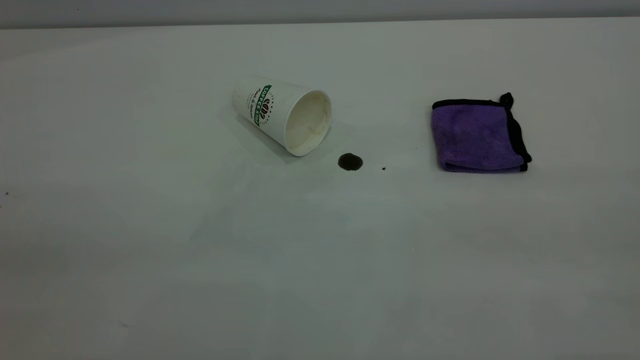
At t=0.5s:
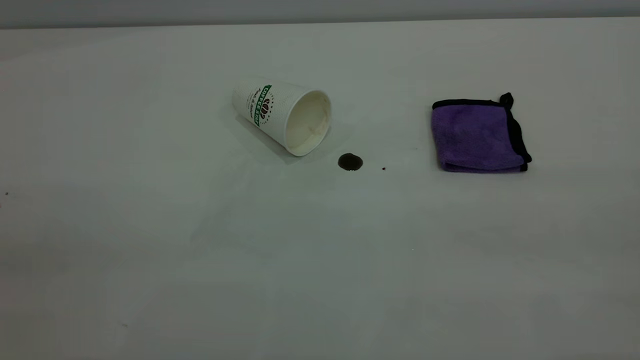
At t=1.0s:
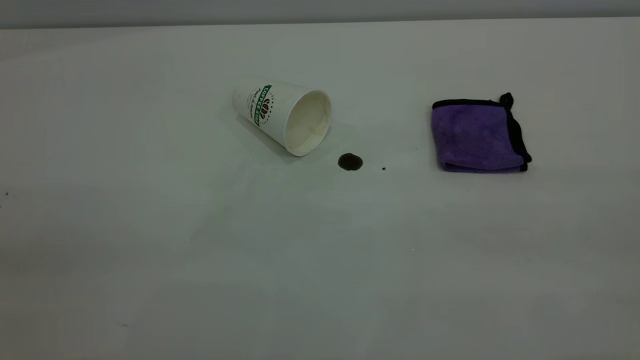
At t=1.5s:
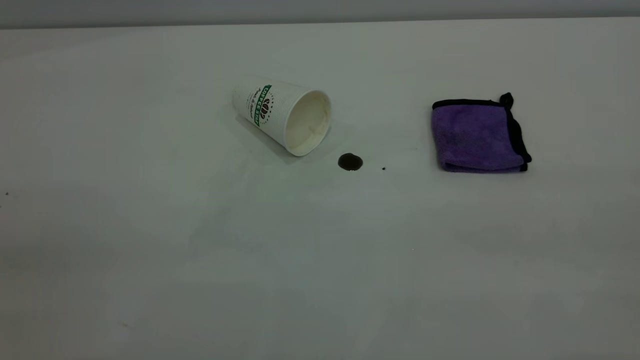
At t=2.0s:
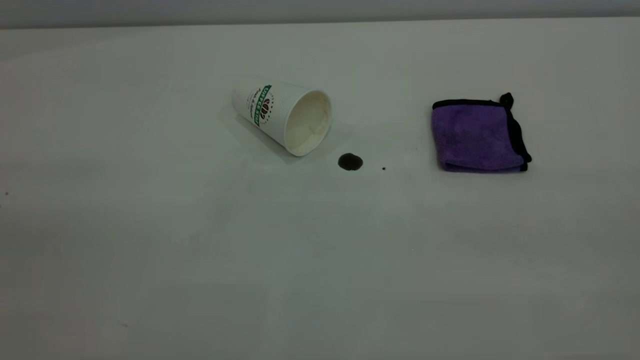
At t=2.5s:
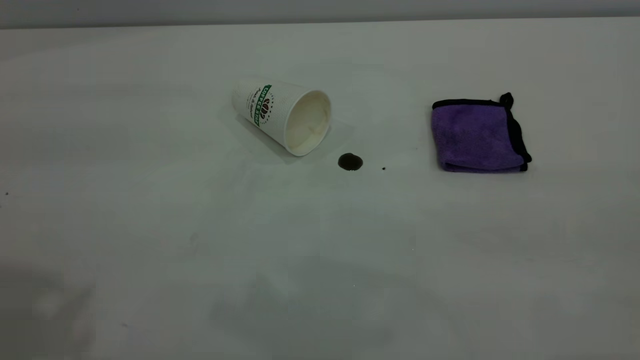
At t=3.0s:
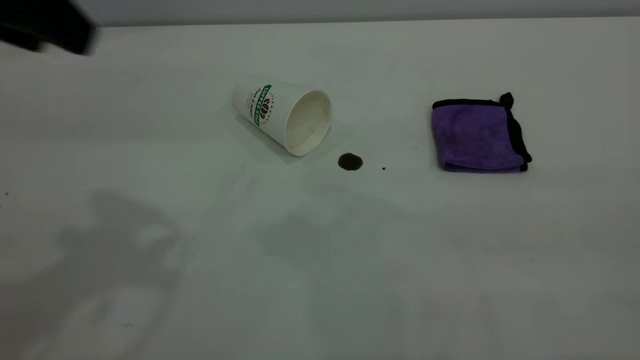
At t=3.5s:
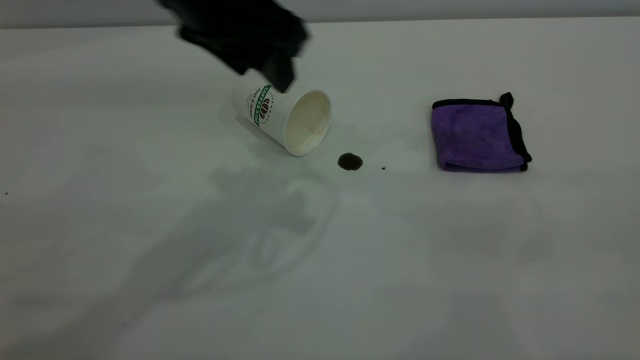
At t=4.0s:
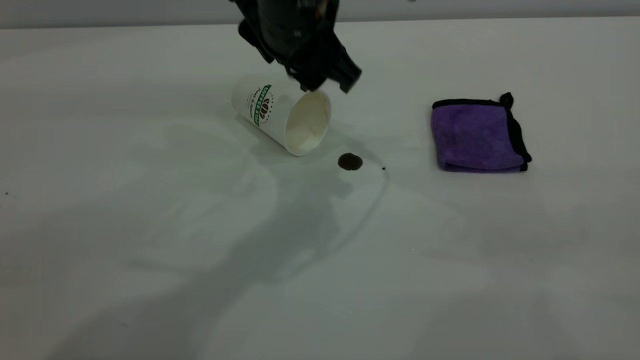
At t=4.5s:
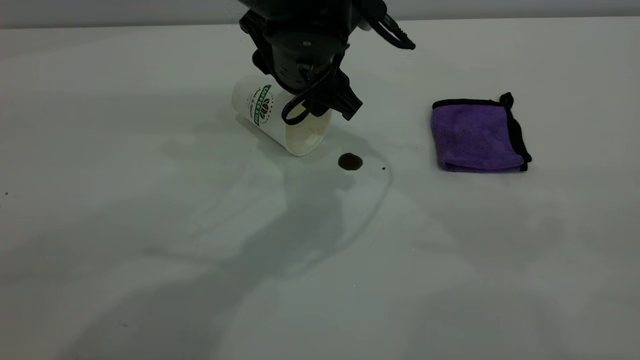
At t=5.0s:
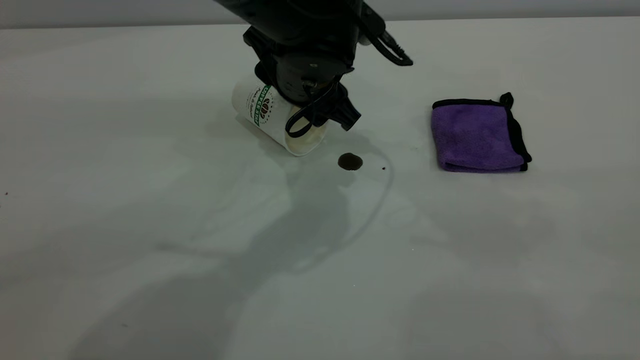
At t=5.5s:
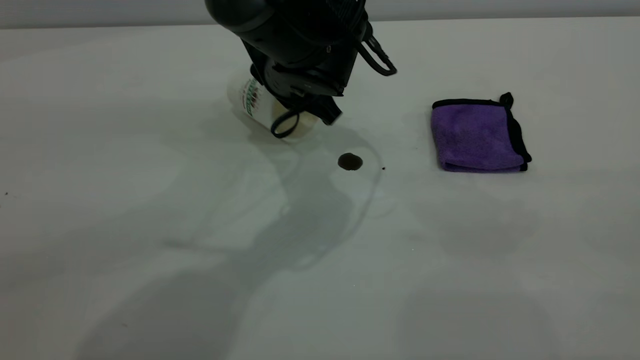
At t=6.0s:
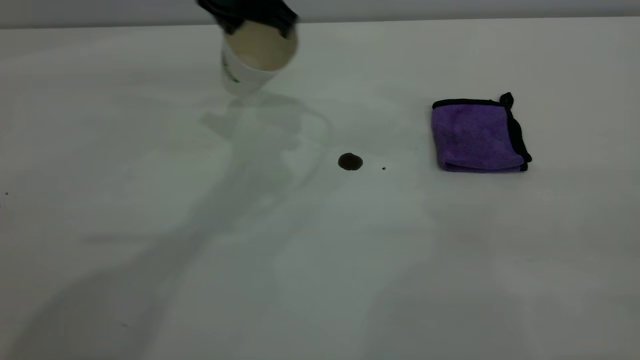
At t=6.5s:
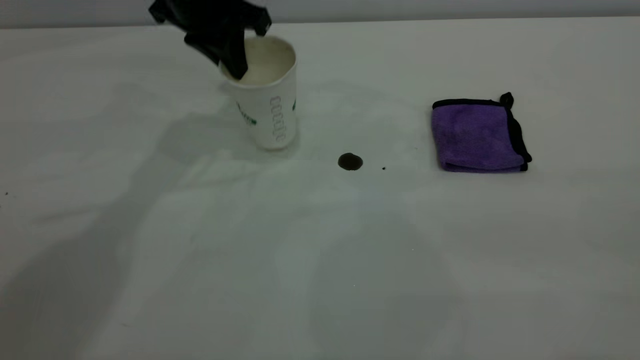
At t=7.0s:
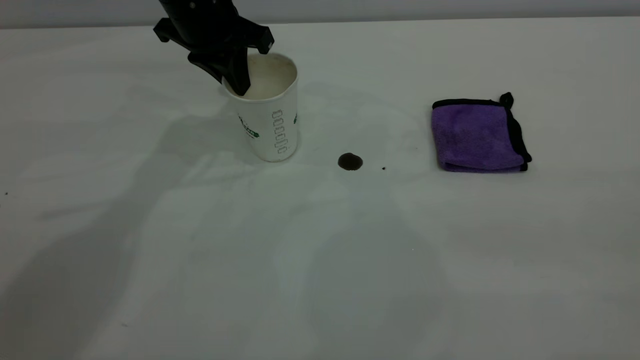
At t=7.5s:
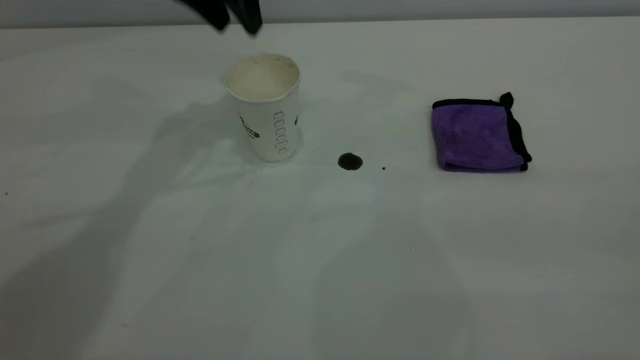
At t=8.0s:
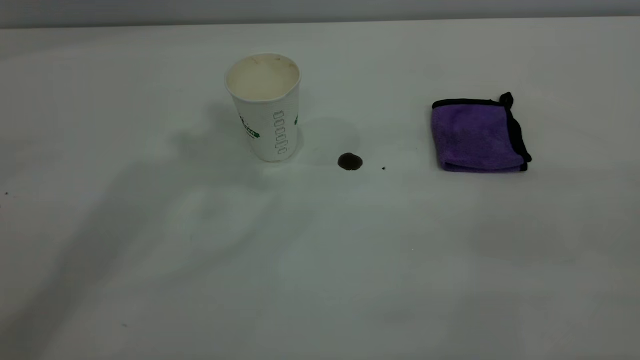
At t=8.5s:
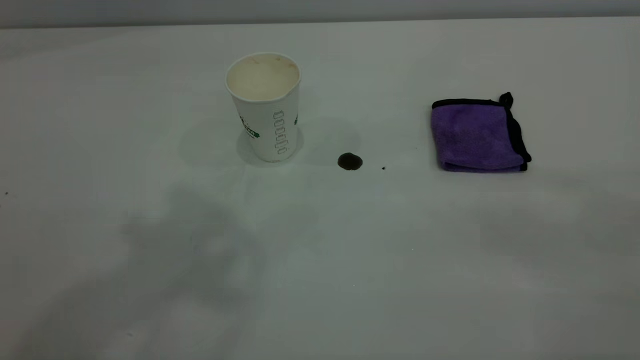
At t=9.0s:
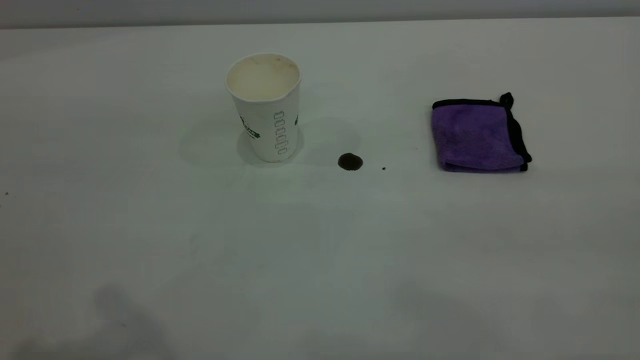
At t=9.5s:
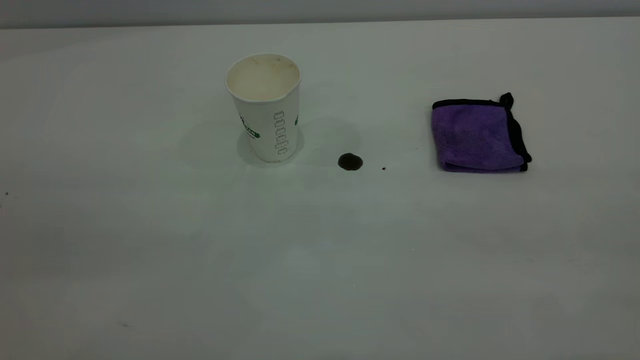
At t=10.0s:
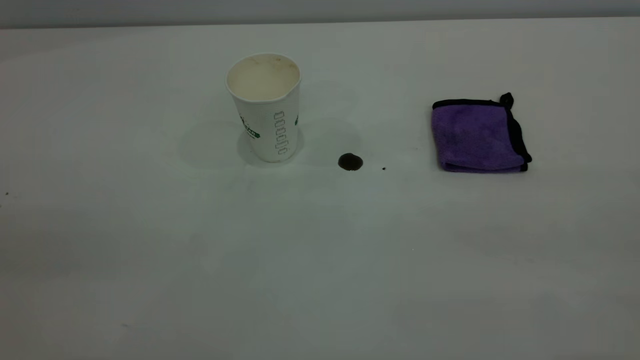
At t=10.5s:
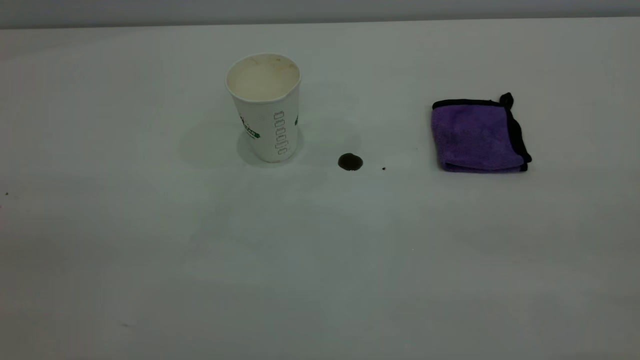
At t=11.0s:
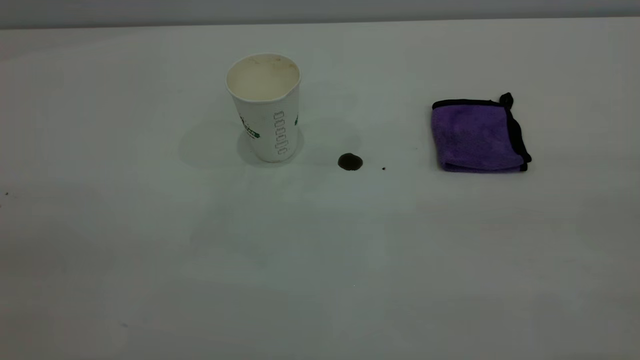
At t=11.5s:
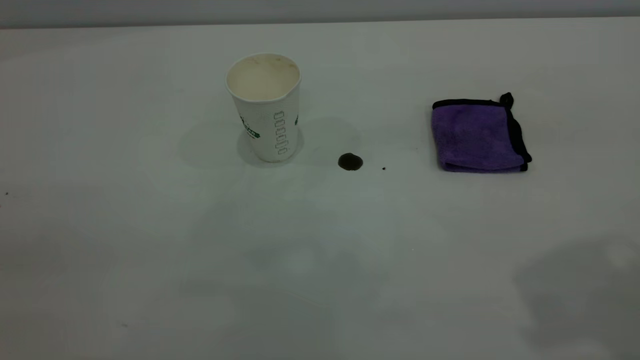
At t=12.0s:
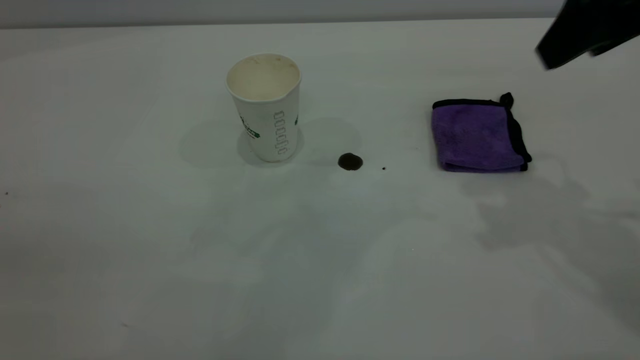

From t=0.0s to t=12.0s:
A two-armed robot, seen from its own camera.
Task of the whole recording: the left gripper pick up the fallen cup and place it upright, the right gripper grasp the purple rag and wipe the coffee stain on the table, the right gripper put the purple rag back in its original position.
Step, from t=0.0s to t=7.0s: Stand the paper cup upright.
From t=2.0s to t=4.0s: The left gripper is displaced forward, to the right and downward by some 50 cm.
From t=4.0s to t=6.0s: The left gripper is displaced to the left and forward by some 10 cm, travels downward and back again, roughly 5 cm each way, and closes.
From t=6.0s to t=8.0s: The left gripper heads upward, covering about 25 cm, and opens its fingers.
From t=10.0s to t=12.0s: The right gripper moves forward, some 30 cm.

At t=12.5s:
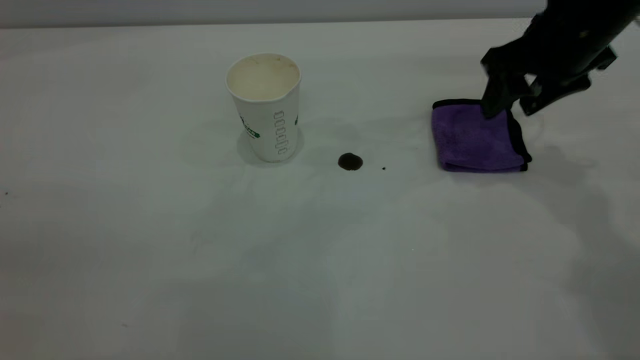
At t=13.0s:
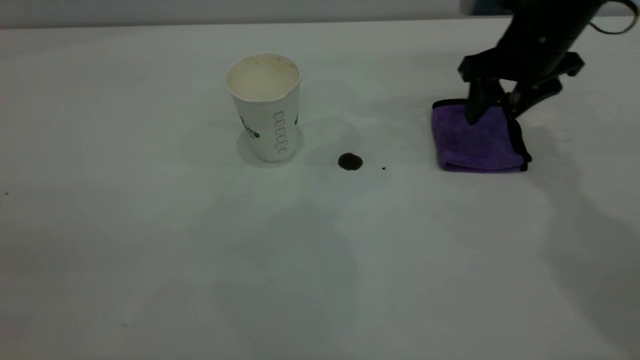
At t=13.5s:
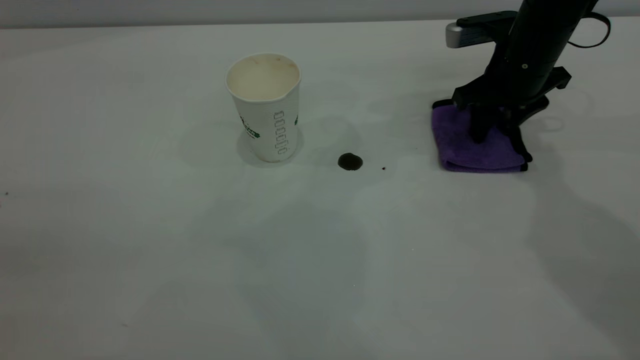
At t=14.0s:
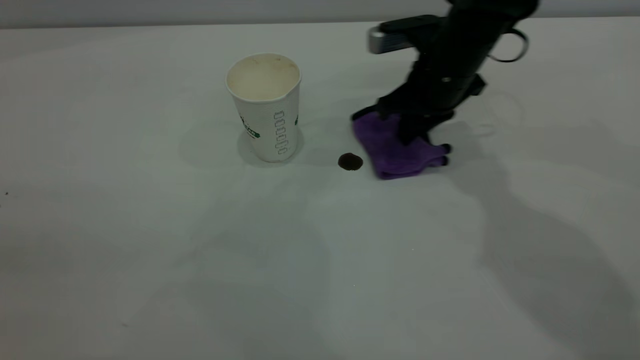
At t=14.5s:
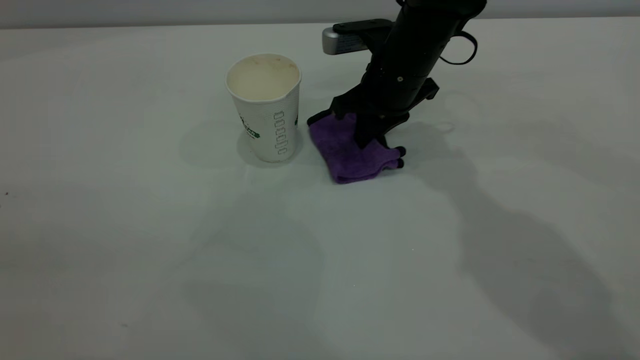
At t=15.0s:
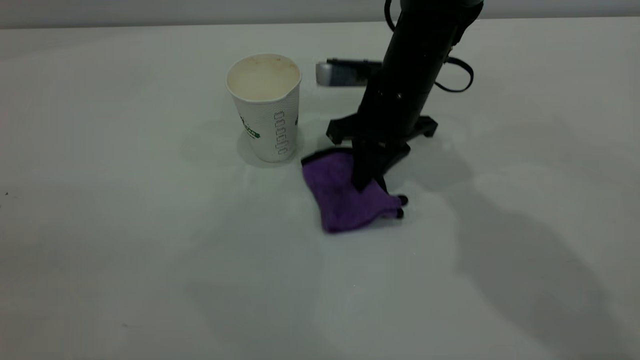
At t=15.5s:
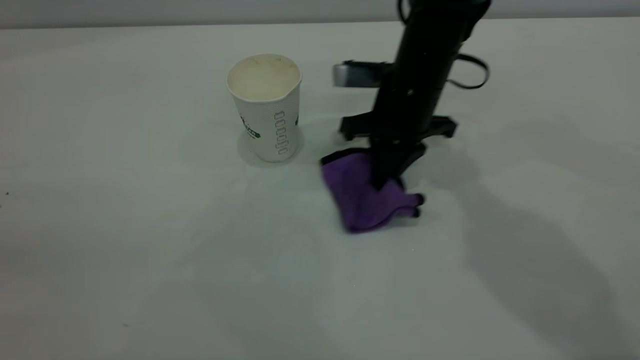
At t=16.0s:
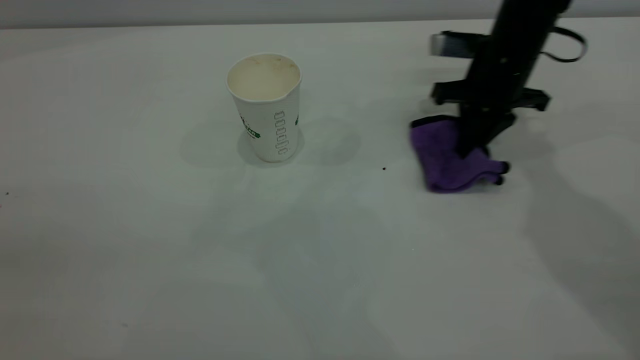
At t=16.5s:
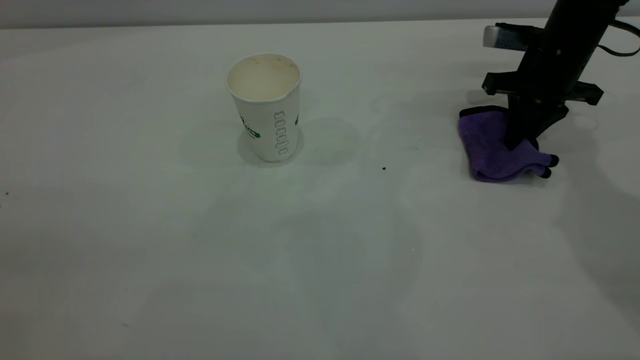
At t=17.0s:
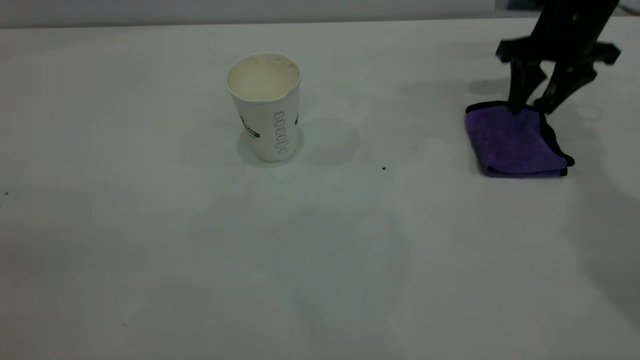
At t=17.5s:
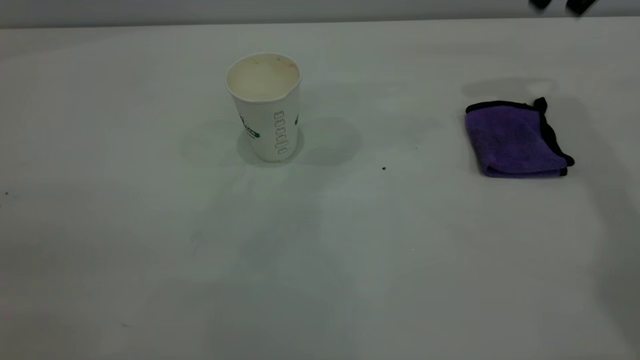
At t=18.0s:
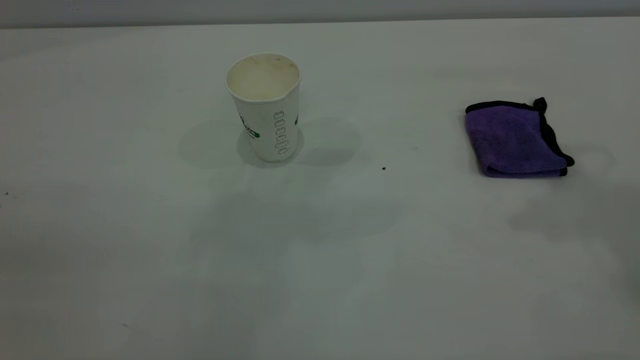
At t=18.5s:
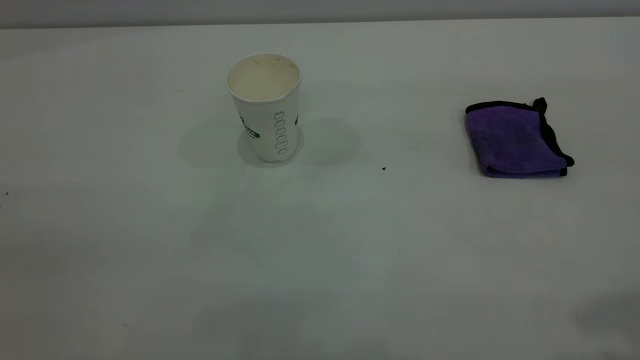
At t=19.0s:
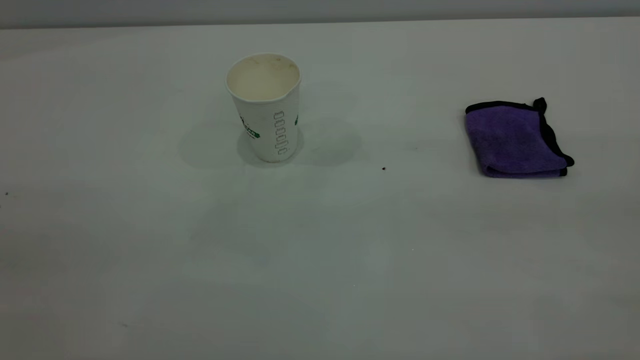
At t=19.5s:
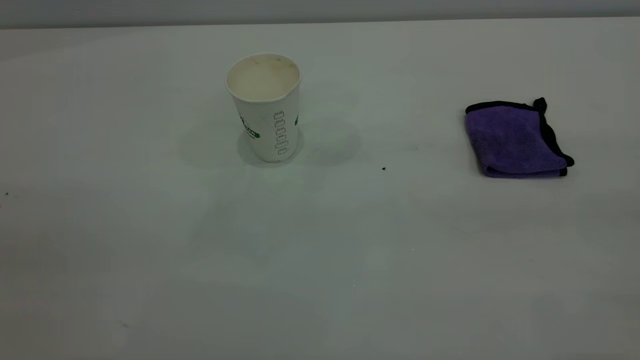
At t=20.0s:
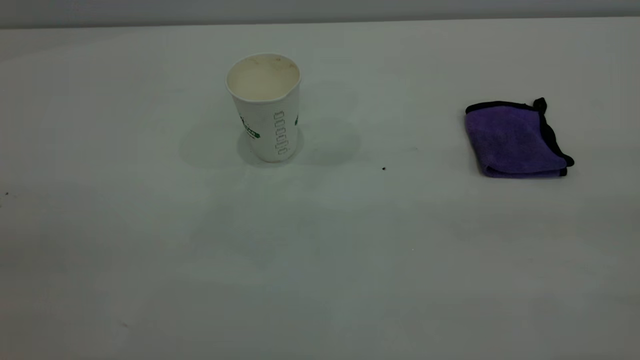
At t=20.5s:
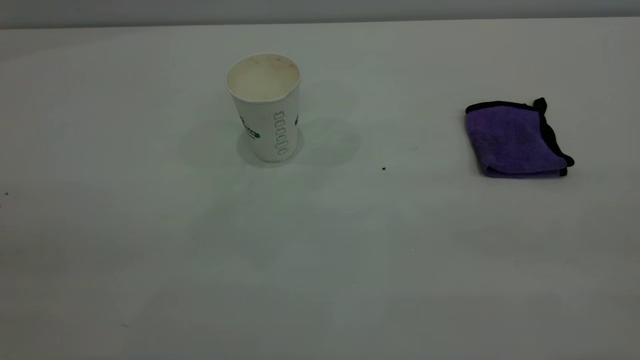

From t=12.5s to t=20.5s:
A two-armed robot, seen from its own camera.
Task of the whole recording: the left gripper pick up the fallen cup and place it upright, the right gripper grasp the purple rag and wipe the coffee stain on the table, the right gripper put the purple rag back in its original position.
Step, from t=12.5s to t=17.0s: Wipe the stains off the table with a rag.
From t=12.5s to t=14.5s: The right gripper moves to the left and downward, roughly 15 cm, and closes up.
From t=14.5s to t=16.5s: The right gripper goes about 20 cm to the right.
From t=16.5s to t=18.5s: The right gripper shifts approximately 50 cm backward and upward, and opens.
